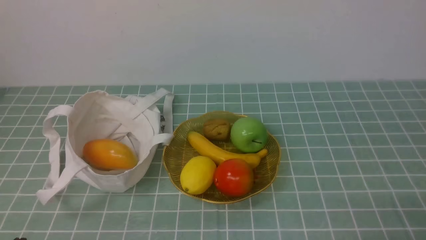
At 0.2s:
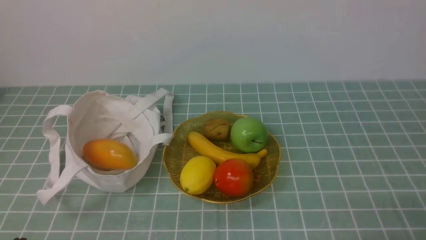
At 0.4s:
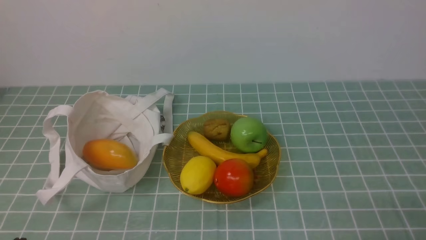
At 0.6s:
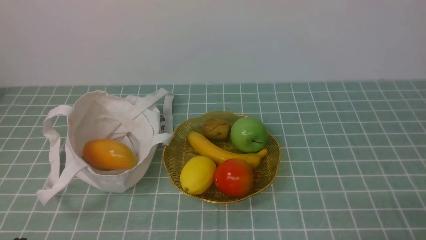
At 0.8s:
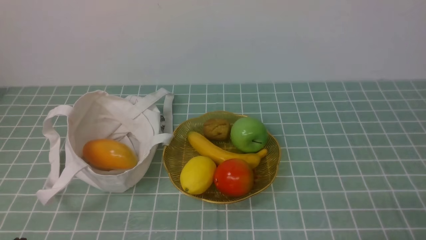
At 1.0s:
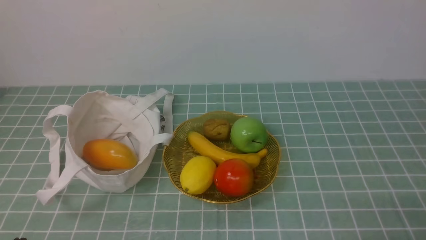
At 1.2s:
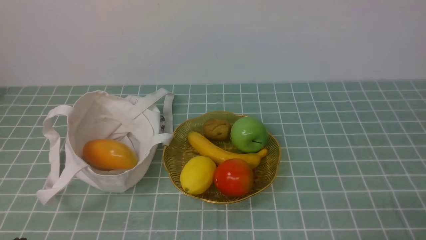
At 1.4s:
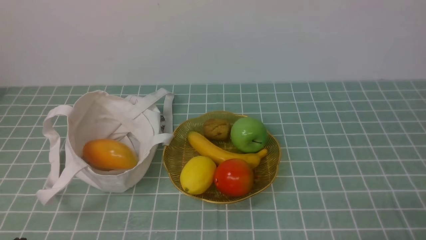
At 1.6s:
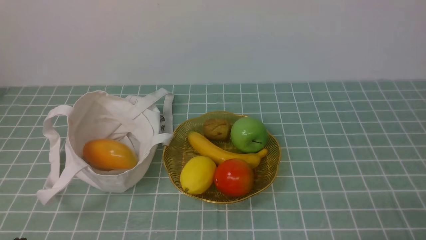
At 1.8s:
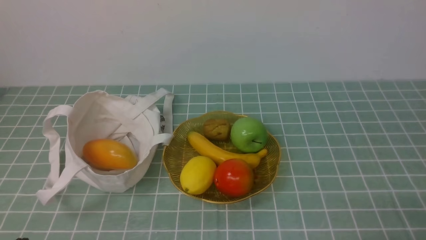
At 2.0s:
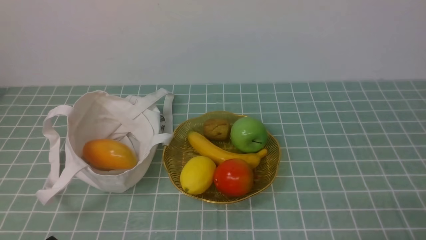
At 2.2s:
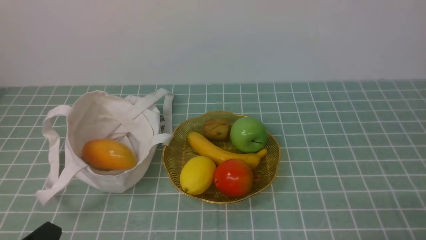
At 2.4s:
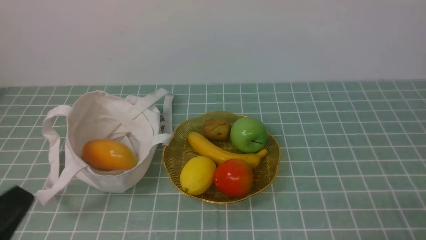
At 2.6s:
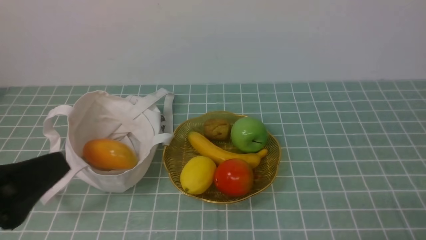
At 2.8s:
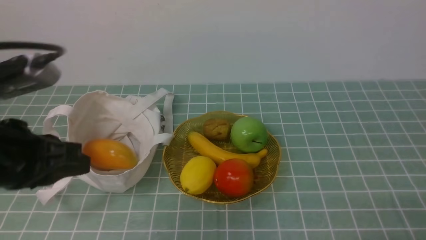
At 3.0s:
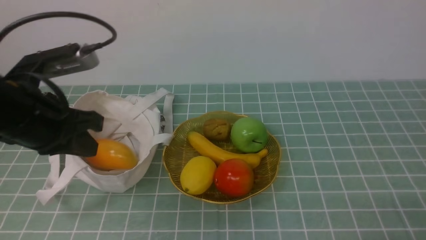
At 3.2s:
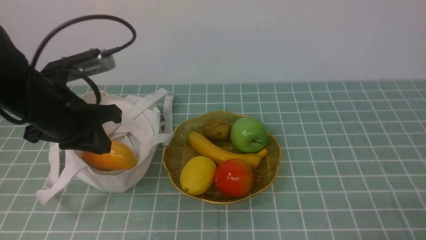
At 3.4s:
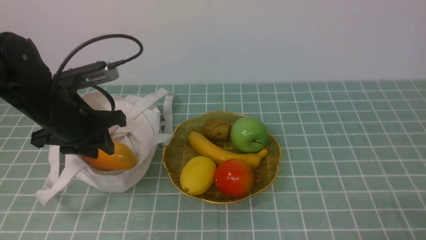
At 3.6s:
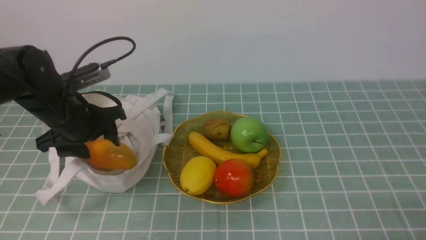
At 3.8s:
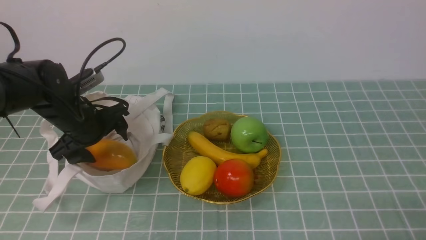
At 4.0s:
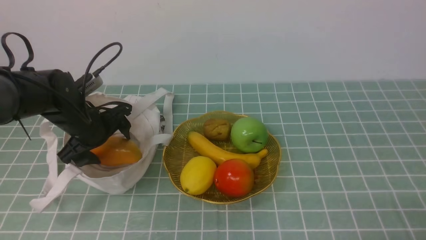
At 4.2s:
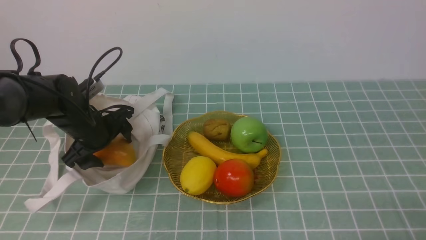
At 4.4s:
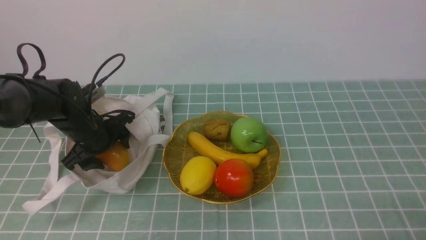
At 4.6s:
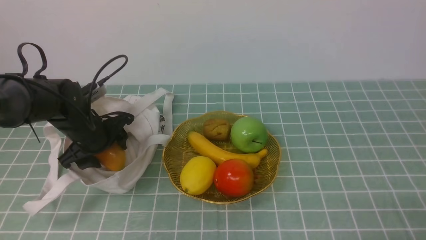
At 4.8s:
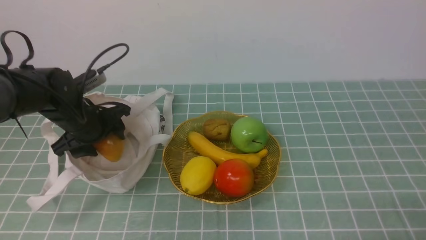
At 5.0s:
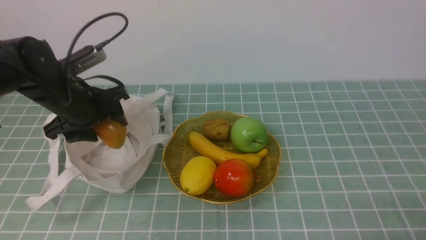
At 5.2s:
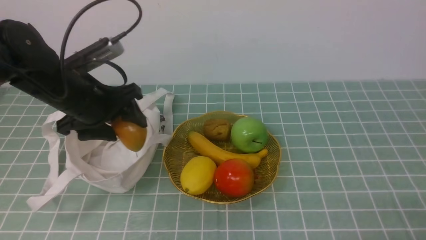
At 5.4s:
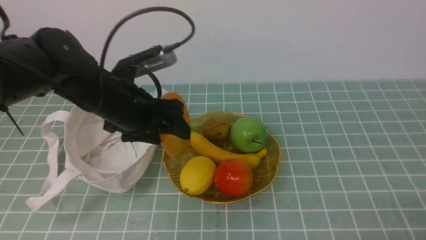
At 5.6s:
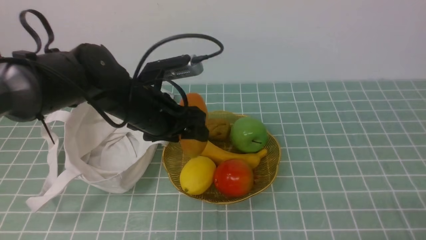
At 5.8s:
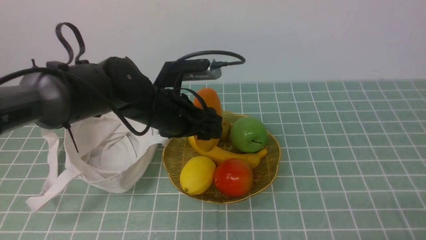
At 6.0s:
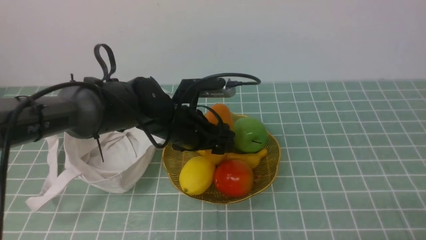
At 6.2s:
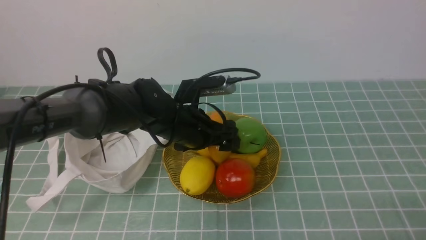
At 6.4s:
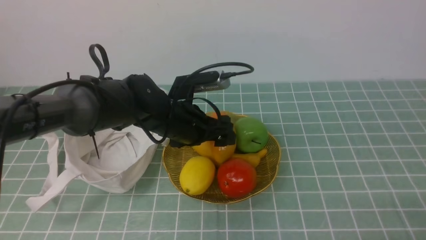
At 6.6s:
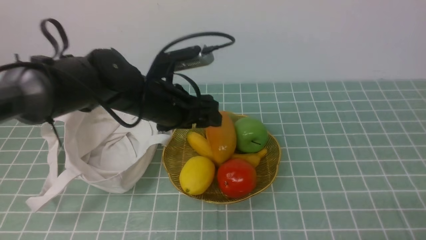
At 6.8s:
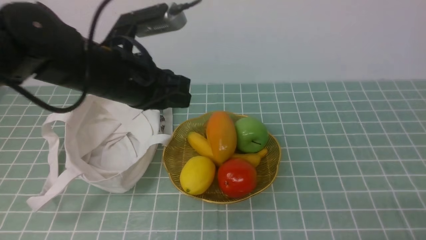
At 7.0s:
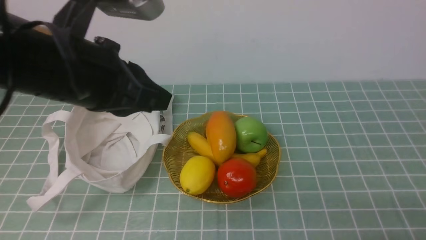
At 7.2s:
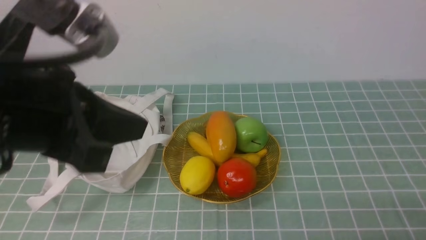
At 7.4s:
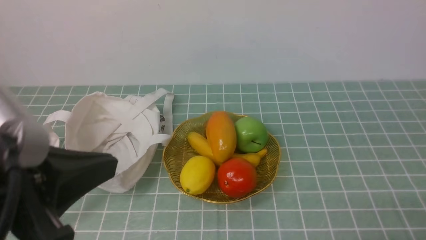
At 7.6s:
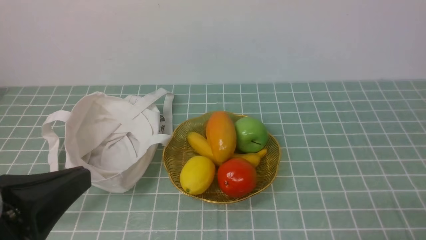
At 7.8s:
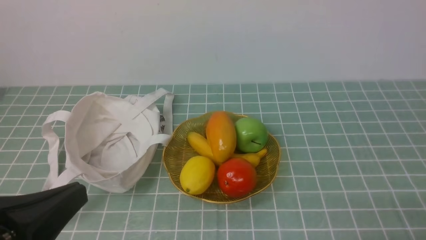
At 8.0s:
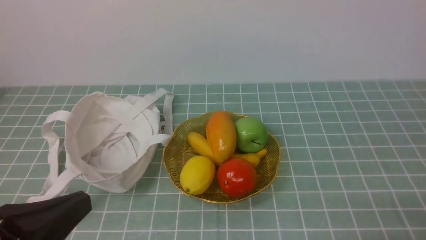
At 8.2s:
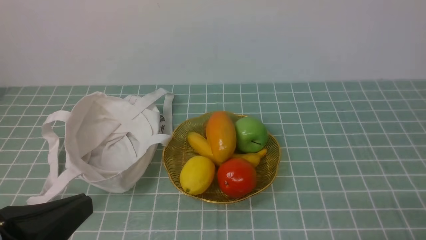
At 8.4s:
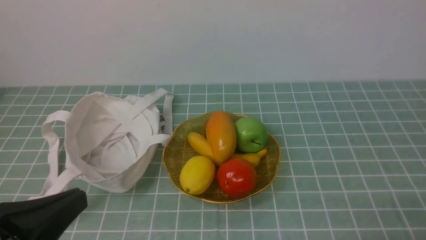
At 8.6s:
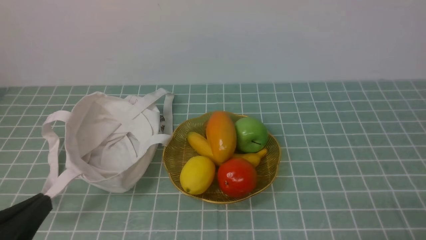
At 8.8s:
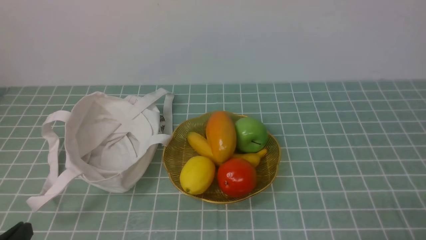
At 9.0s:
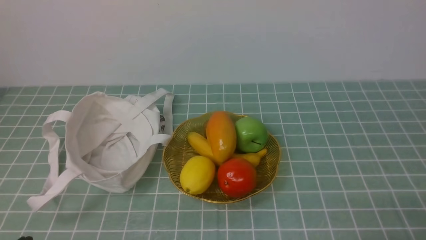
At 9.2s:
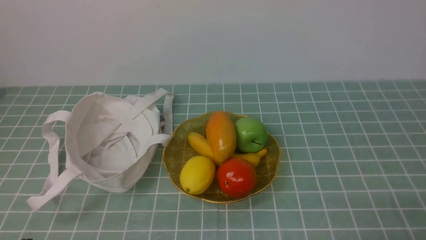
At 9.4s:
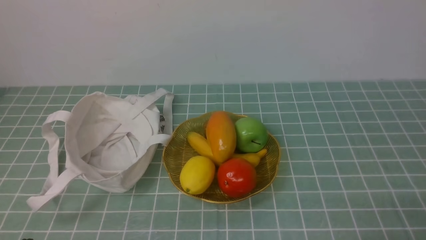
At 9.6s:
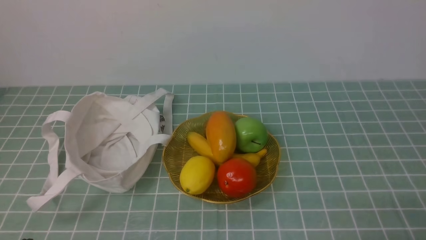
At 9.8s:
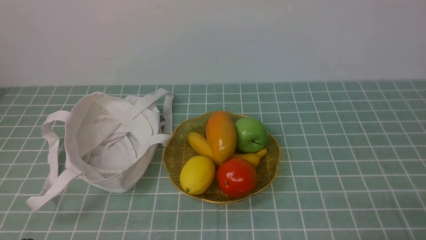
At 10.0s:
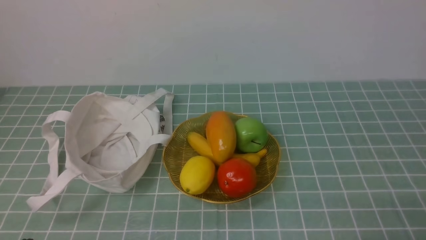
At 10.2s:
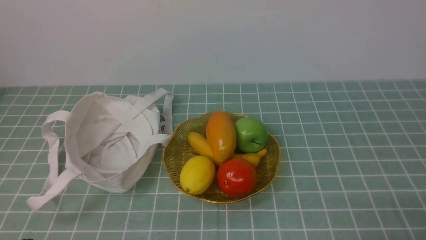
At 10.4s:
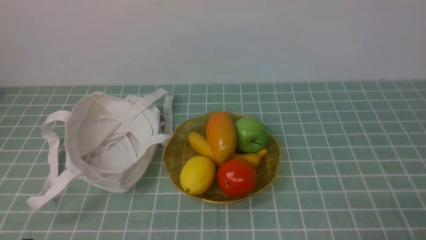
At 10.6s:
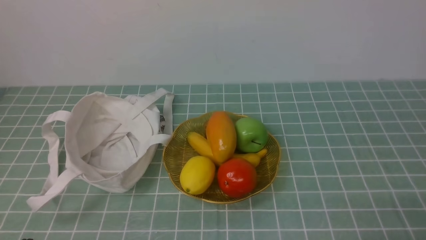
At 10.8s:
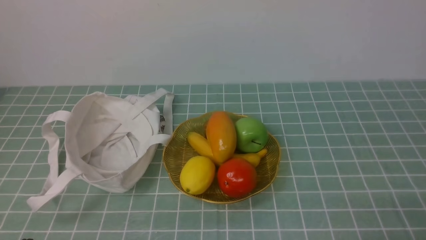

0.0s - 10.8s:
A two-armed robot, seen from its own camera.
Step, 0.0s - 4.8s: use the left arm to grab a mango from the bag.
Step, 5.0s - 6.4s: use the left arm to put the mango into the empty plate on the right.
0.0s - 1.6s: Both grippers stay put.
1.6s - 3.0s: The left gripper shifts some 25 cm forward and upward.
3.0s - 4.6s: The left gripper goes approximately 20 cm downward and forward, and opens up.
4.6s - 6.2s: The left gripper is displaced to the right by about 15 cm.
6.2s - 7.8s: The left gripper goes roughly 30 cm backward and to the left, and closes its fingers.
7.8s - 9.2s: The left gripper travels downward by about 15 cm.
9.2s - 10.8s: Both grippers stay about where they are.
